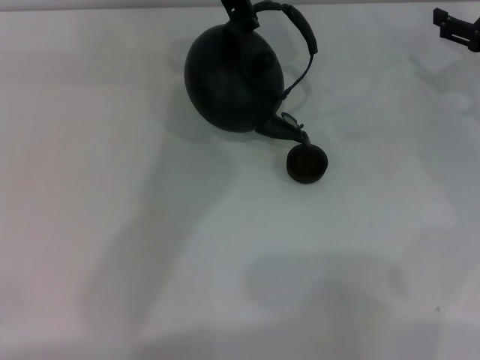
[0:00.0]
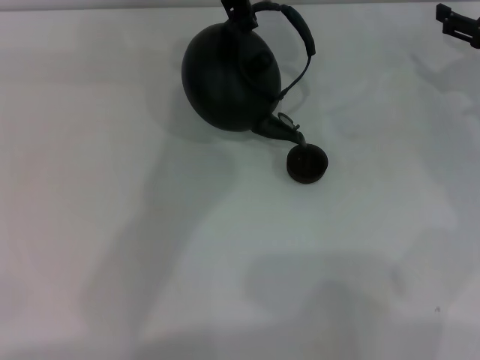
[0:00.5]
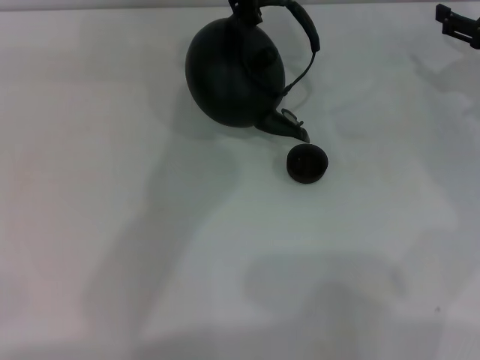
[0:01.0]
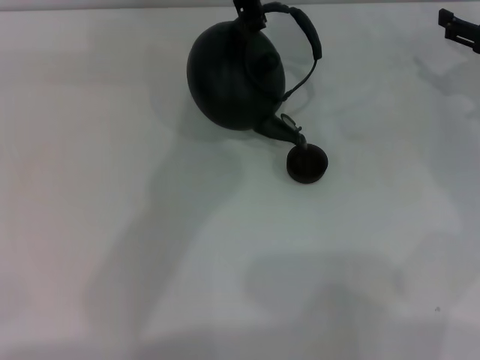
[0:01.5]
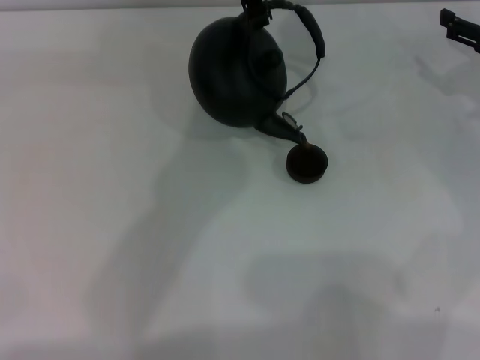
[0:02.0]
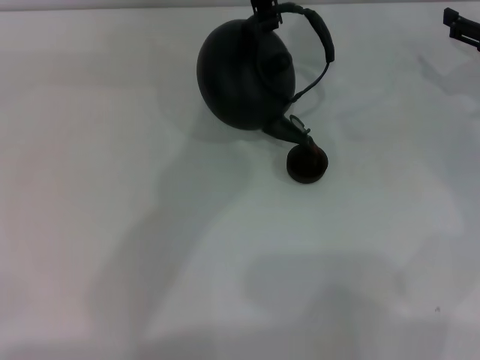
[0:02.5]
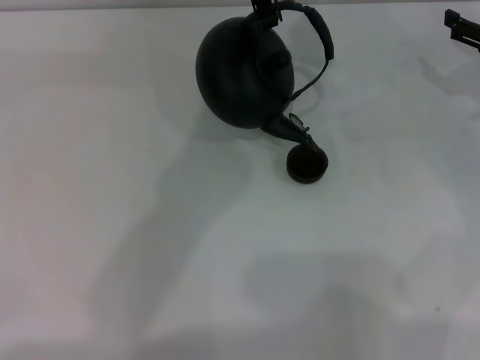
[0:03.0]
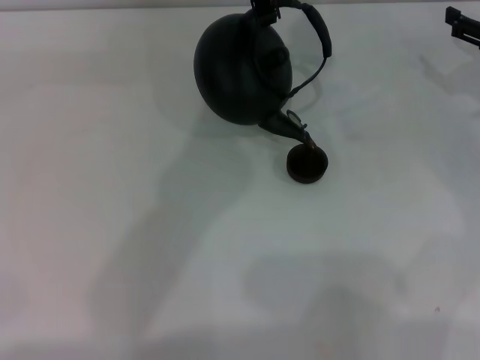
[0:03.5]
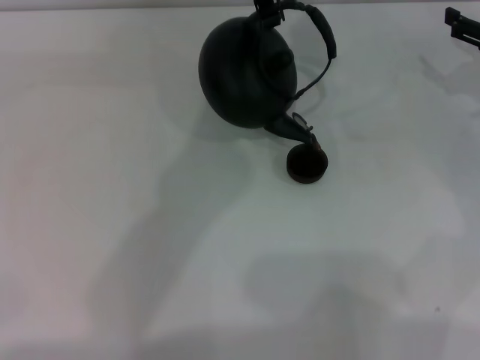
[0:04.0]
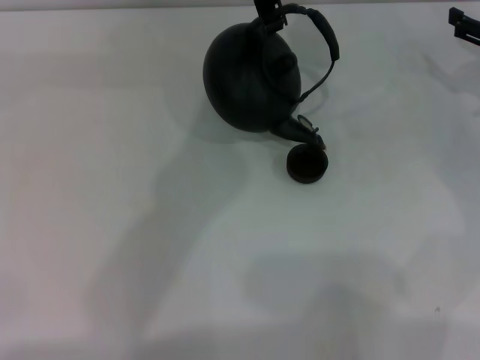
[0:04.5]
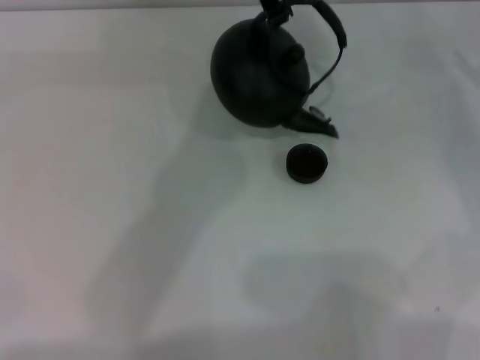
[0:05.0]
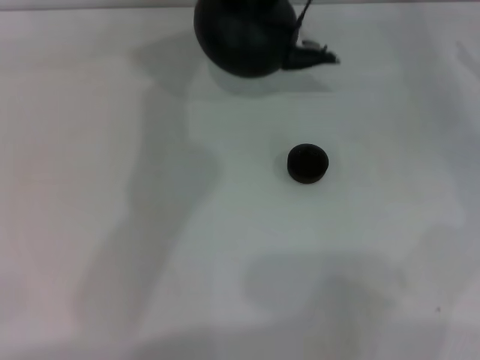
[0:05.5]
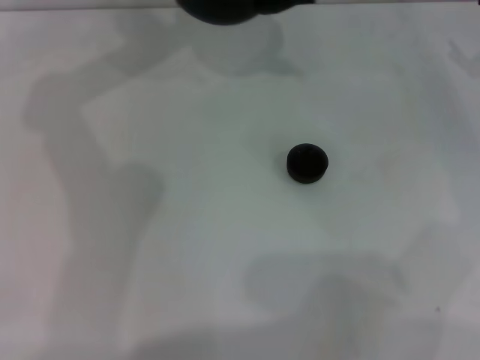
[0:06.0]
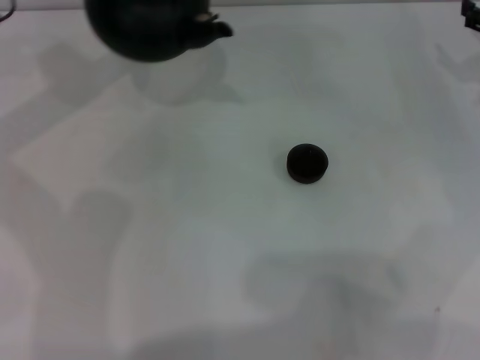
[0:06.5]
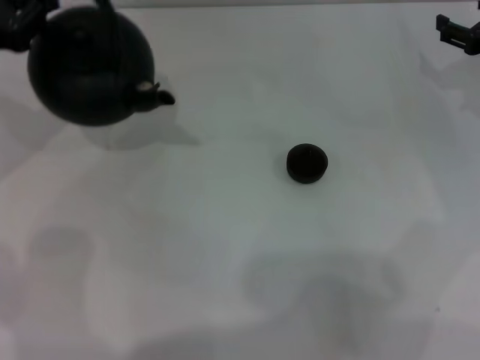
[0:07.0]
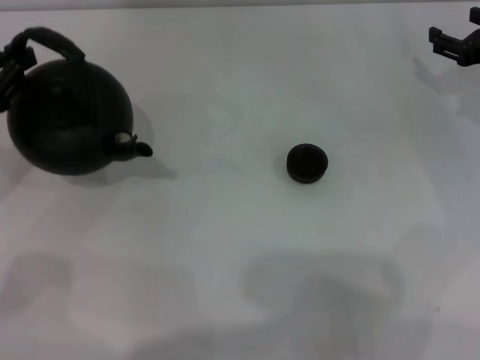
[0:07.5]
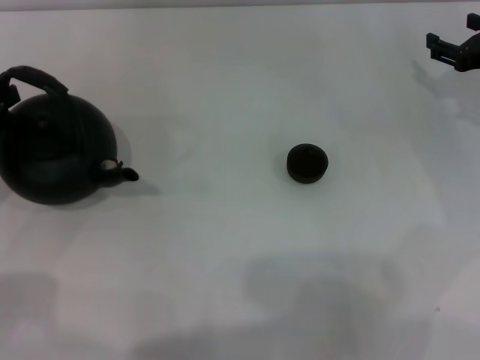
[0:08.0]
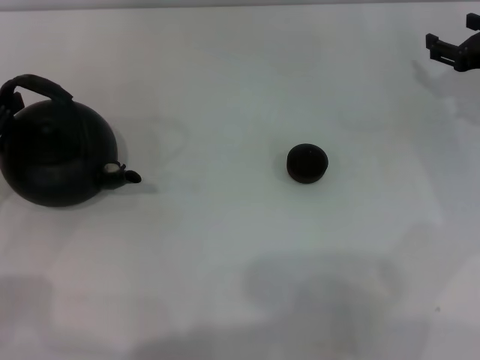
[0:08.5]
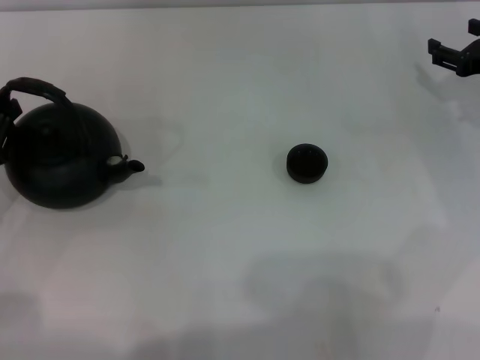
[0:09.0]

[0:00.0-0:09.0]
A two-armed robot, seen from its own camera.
Task of the whole recording: Grasp the handle of the teapot with one hand and pour tea into the teacup.
Step, 0:00.0 to 0:05.5: Pour tea into the teacup with the left gripper.
0:00.0 to 0:04.5: The grippers make only small movements.
0:04.5 to 0:07.0: The left gripper goes roughly 30 cm to the left.
0:07.0 to 0:09.0: The left gripper shifts some 15 cm downward and backward.

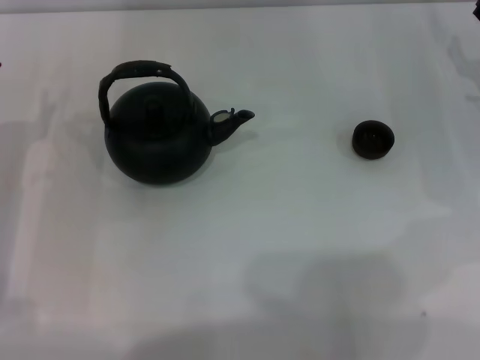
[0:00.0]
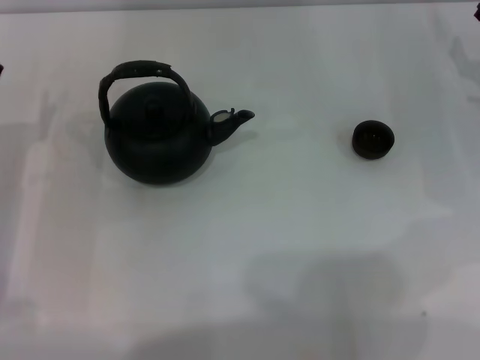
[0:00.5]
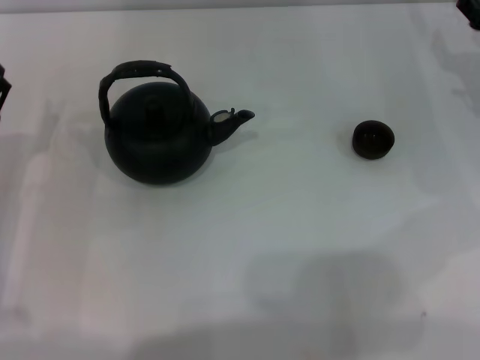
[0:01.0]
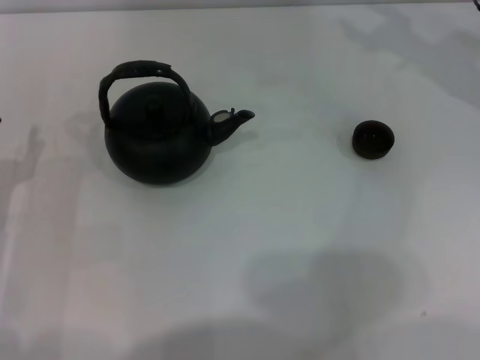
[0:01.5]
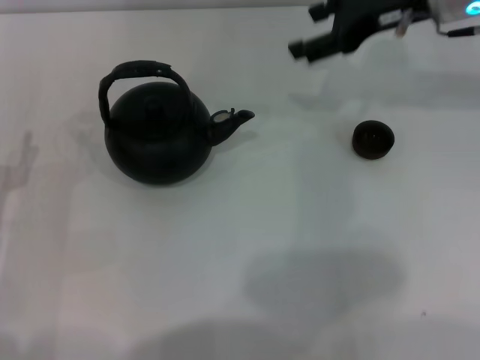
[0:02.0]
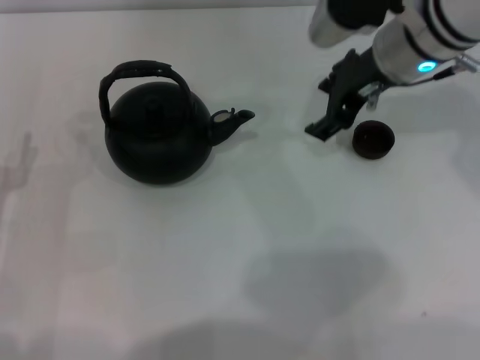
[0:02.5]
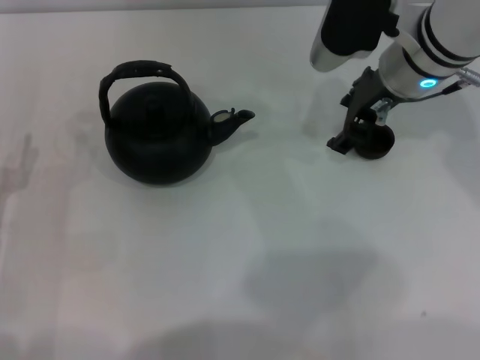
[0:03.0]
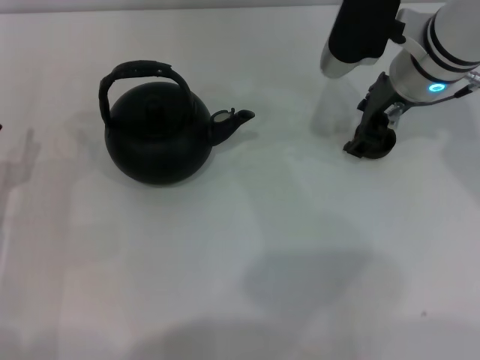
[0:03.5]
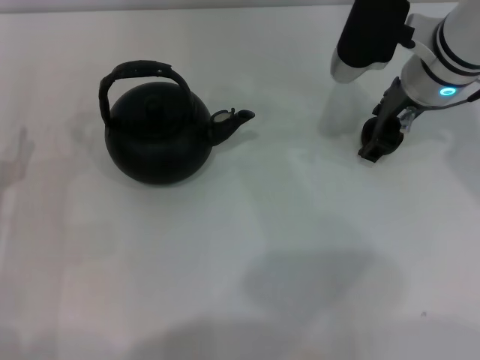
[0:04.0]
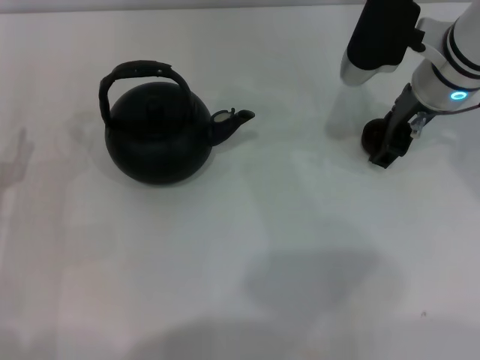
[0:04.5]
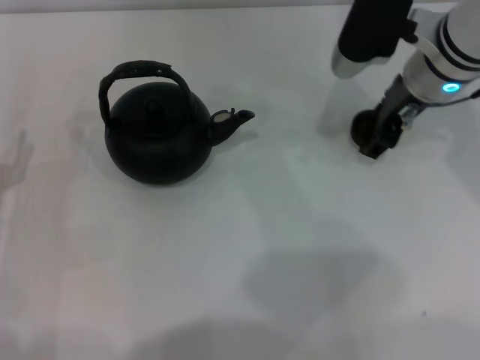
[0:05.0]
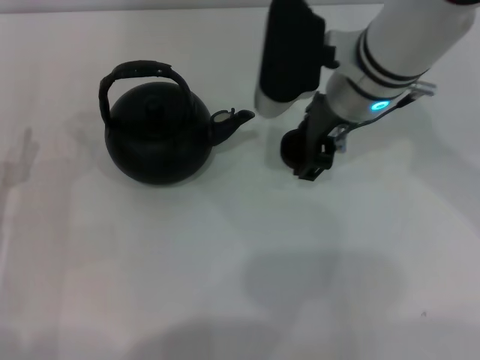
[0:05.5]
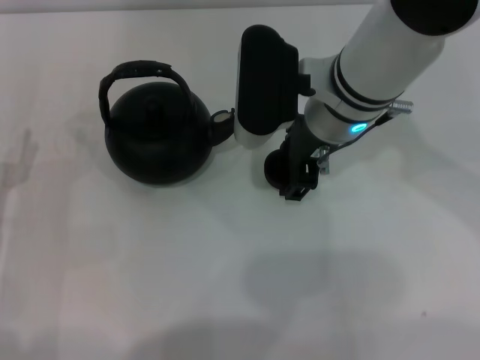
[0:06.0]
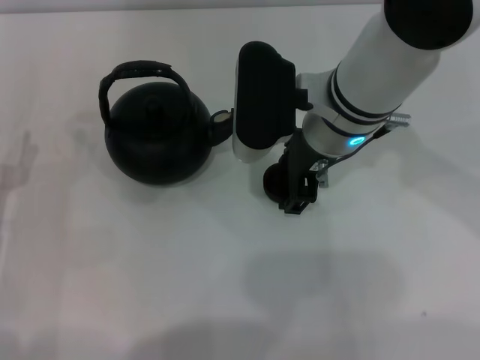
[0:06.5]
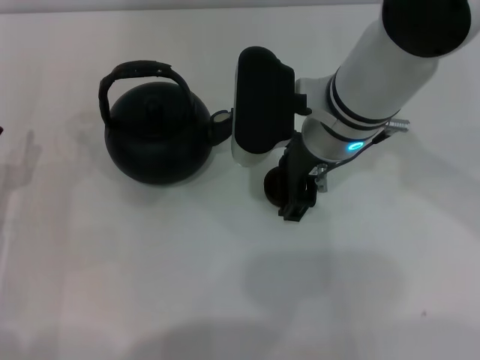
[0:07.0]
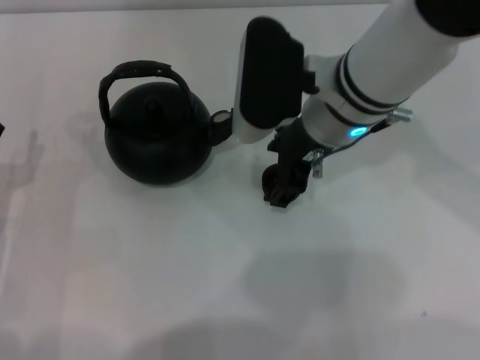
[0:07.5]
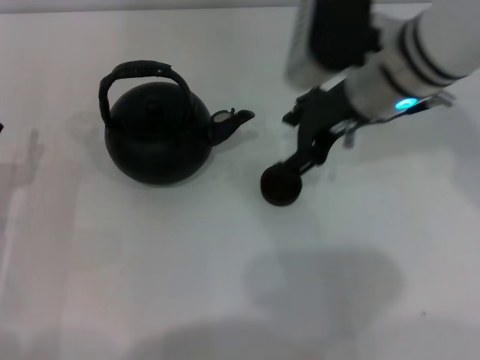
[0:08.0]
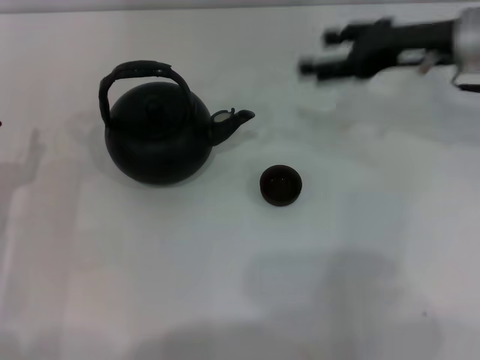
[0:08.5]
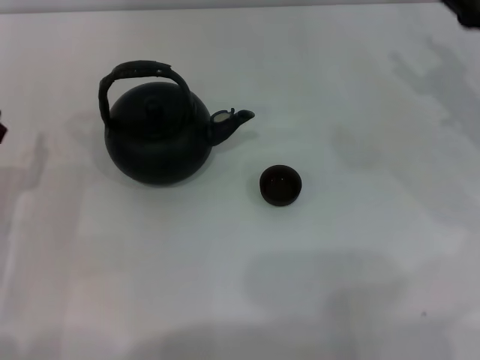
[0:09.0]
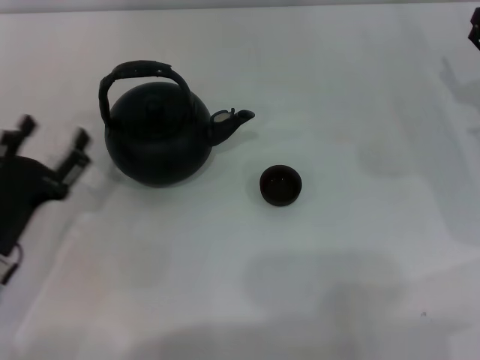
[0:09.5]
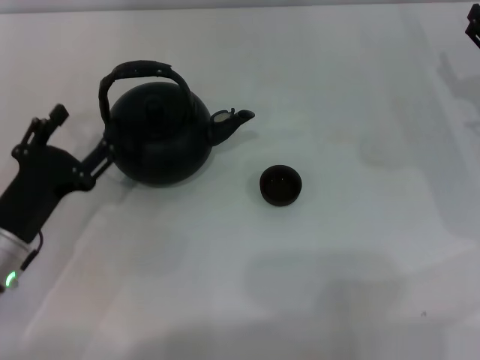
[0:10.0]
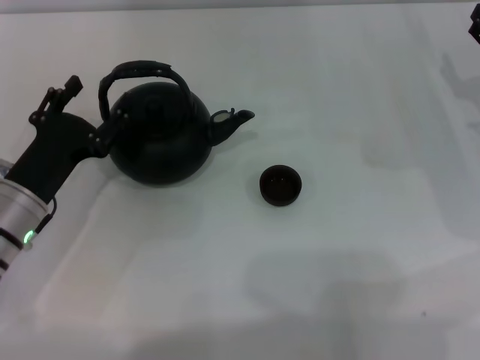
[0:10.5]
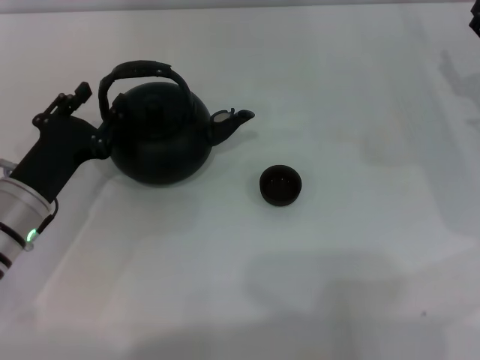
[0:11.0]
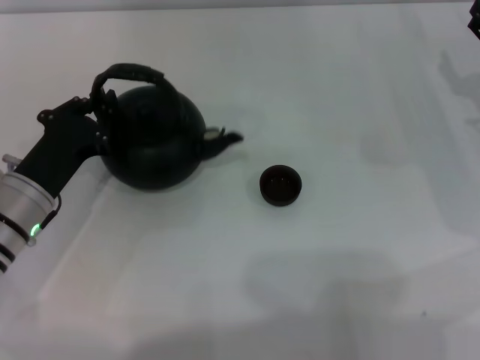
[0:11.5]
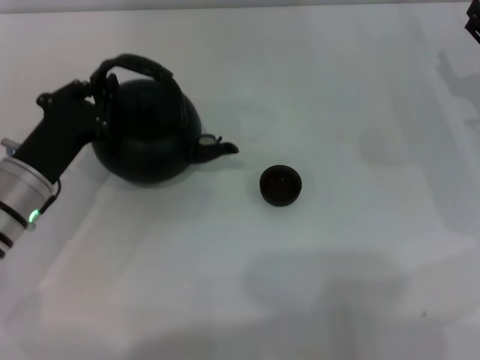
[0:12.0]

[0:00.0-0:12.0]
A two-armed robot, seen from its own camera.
Task of the whole recording: Grasp the handle of the teapot with one hand and pour tea into the teacup.
Step, 0:00.0 to 0:05.0: Pick up the teacup with the right gripper.
Step, 0:05.5 to 0:07.5: Place the teacup in the center of view with the right gripper.
0:00.0 to 0:02.0: The left gripper is displaced backward by some 5 cm, while the right gripper goes some 20 cm upward and to the left, and closes.
0:02.0 to 0:04.0: The right gripper shifts roughly 5 cm downward.
0:04.0 to 0:06.0: The right gripper shifts roughly 10 cm to the left, and closes its fingers.
0:06.0 to 0:08.0: The right gripper shifts by some 5 cm, and opens its fingers.
0:08.0 to 0:10.0: The left gripper is displaced to the right by about 5 cm. Meanwhile the right gripper travels to the right and downward by some 25 cm.
0:10.0 to 0:12.0: The left gripper is displaced forward by approximately 5 cm, and closes its fingers.

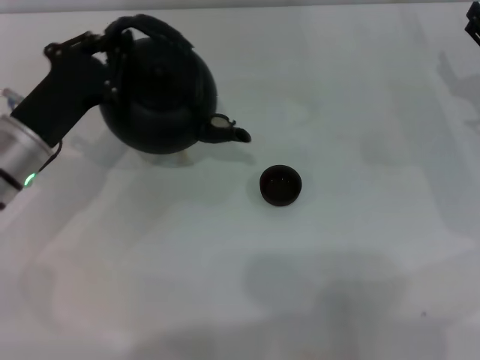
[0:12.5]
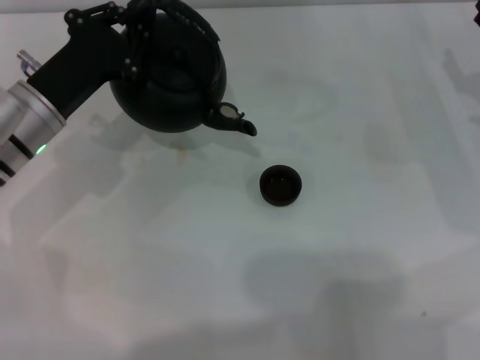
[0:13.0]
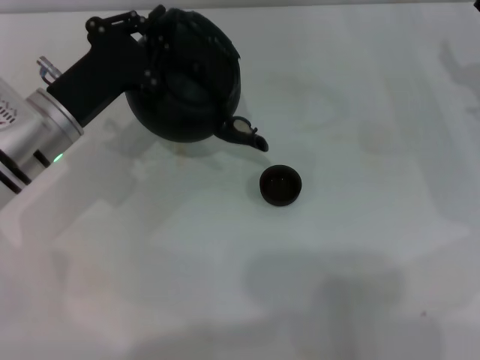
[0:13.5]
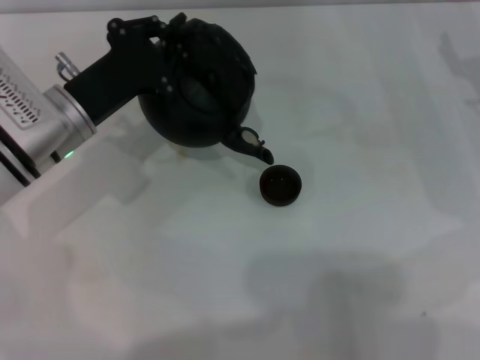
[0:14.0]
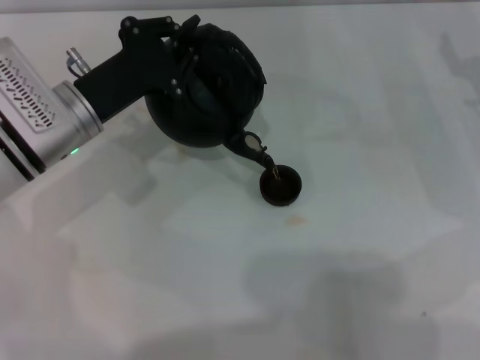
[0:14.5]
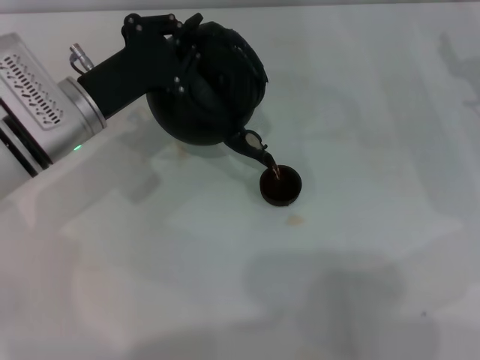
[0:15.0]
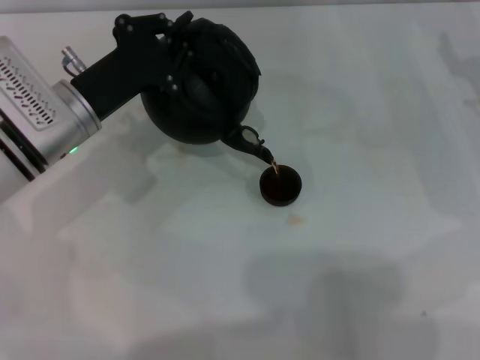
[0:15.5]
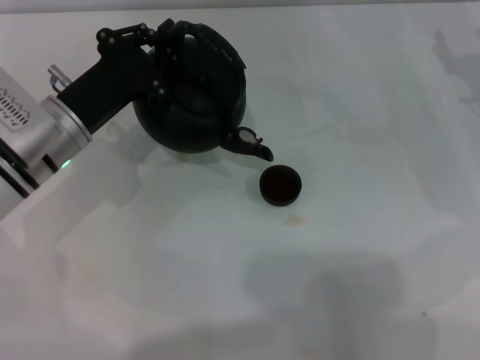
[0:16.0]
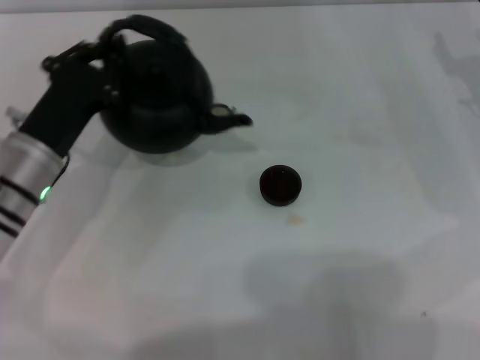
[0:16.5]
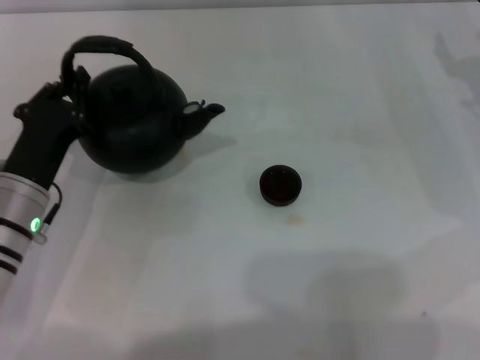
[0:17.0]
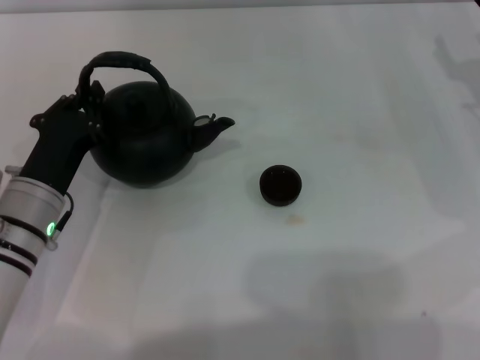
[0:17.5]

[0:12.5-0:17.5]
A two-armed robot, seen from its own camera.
Task of the whole recording: Grasp the handle of the teapot with one hand and pour tea into the teacup.
Step, 0:12.5 to 0:16.0: Pour tea into the teacup with the left gripper.
0:12.5 to 0:15.0: The left gripper ends up about 5 cm from where it was.
0:15.0 to 0:17.5: The left gripper shifts approximately 10 cm backward and downward.
